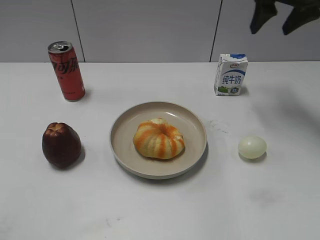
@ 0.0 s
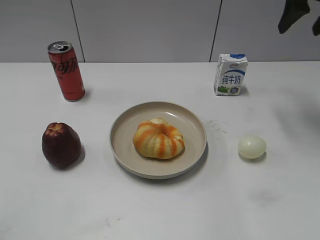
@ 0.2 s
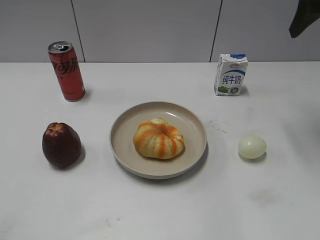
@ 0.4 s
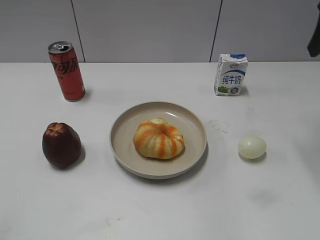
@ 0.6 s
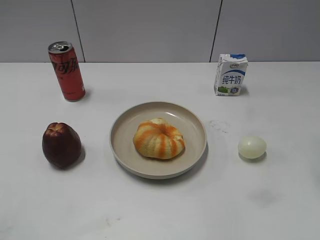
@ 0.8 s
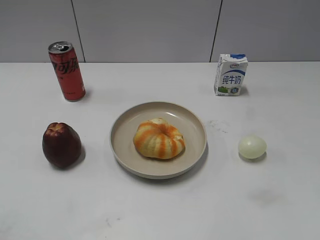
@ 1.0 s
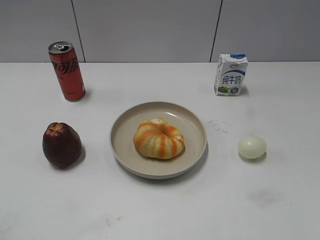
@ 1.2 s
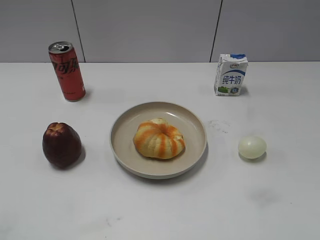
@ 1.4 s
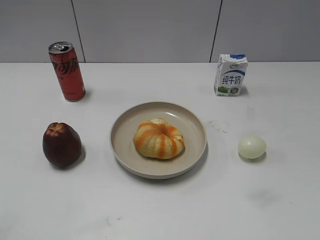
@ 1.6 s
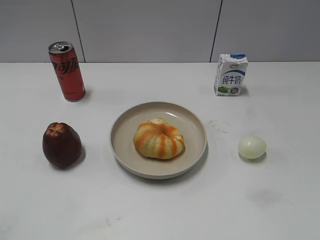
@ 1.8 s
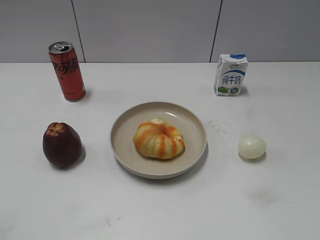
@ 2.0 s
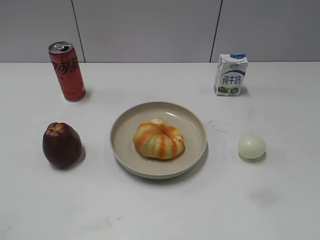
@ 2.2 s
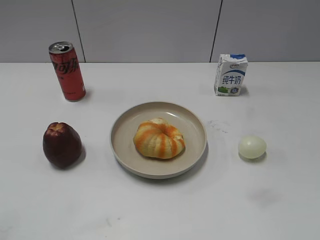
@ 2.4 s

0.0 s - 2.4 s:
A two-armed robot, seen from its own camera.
0.0 s - 1.2 s: The right gripper heads backward, covering approximately 30 cm.
